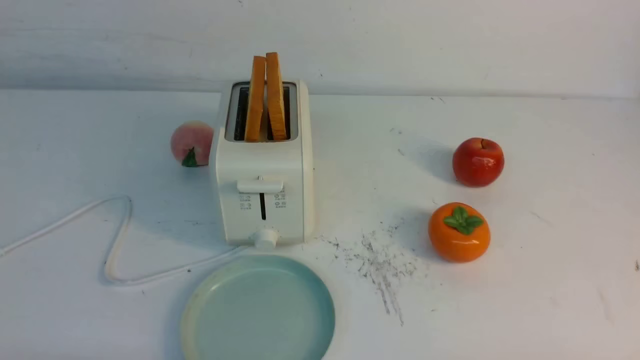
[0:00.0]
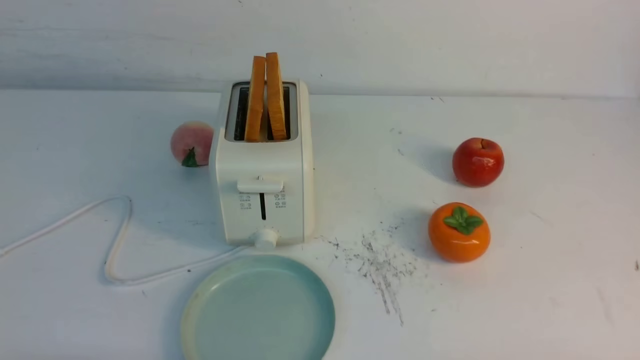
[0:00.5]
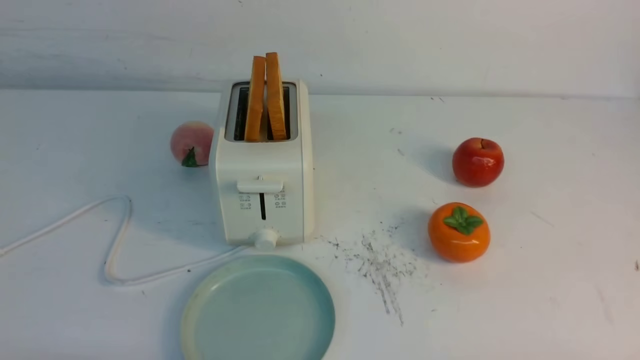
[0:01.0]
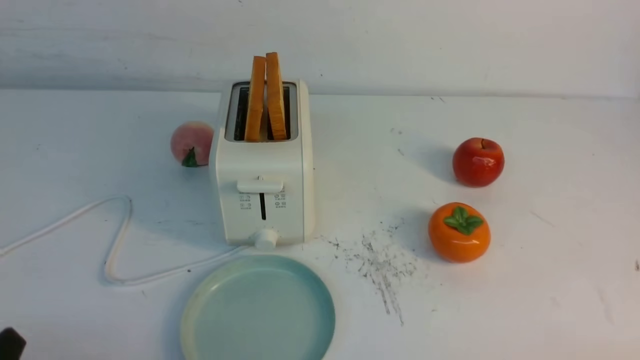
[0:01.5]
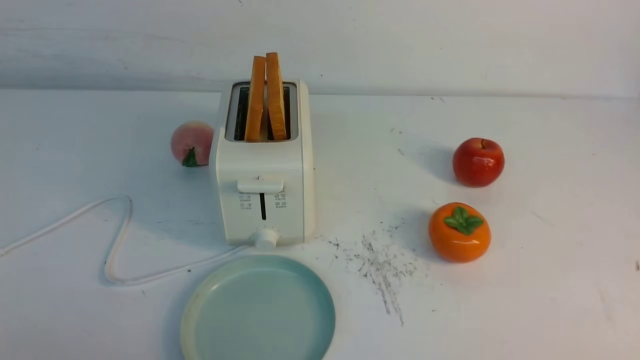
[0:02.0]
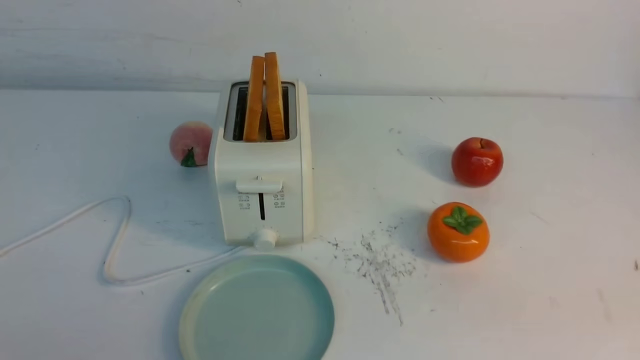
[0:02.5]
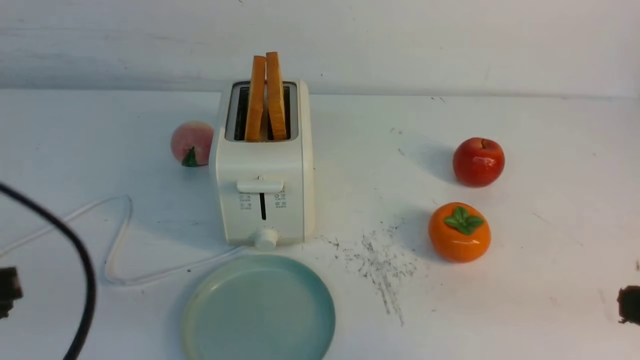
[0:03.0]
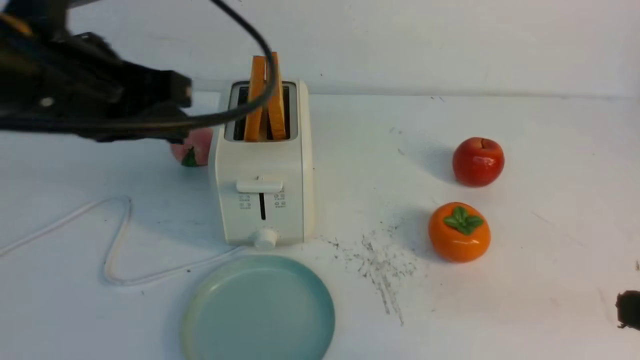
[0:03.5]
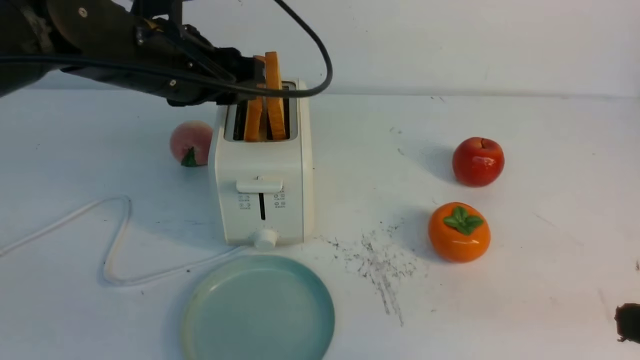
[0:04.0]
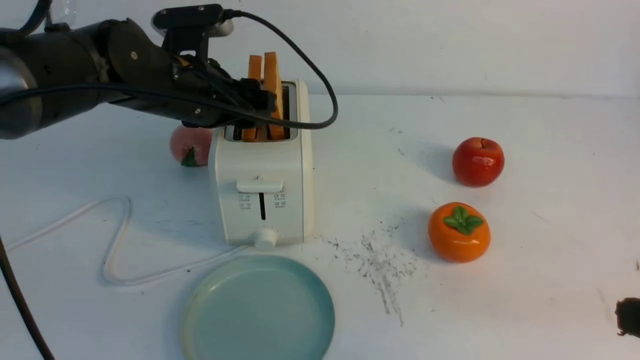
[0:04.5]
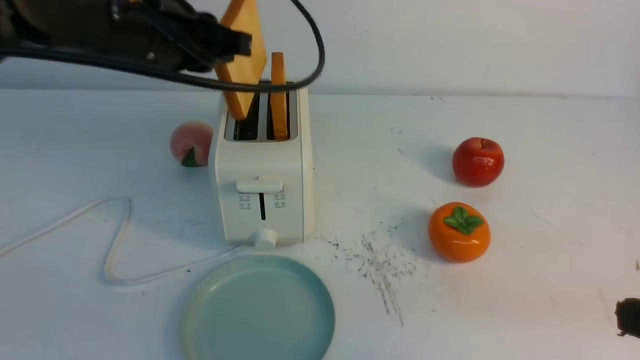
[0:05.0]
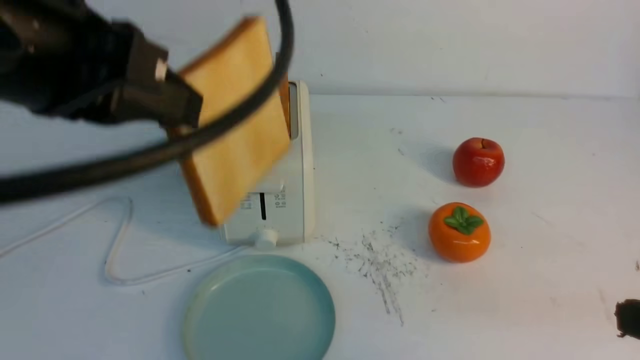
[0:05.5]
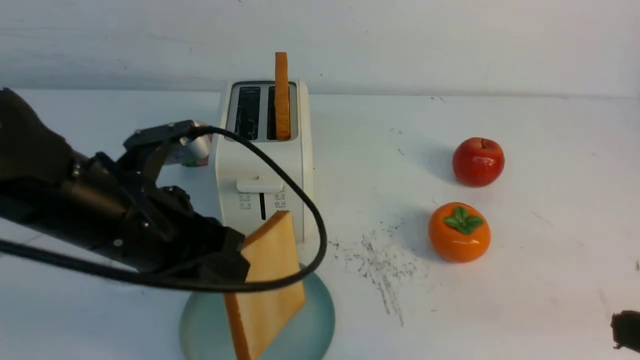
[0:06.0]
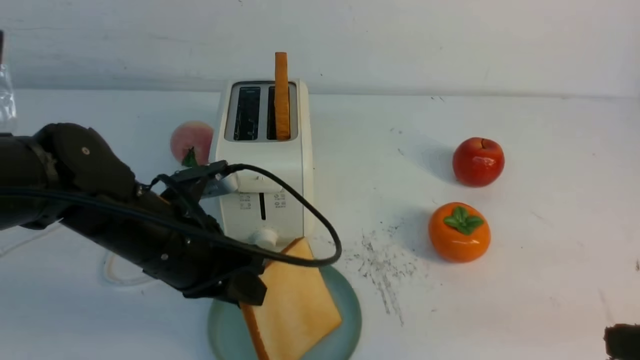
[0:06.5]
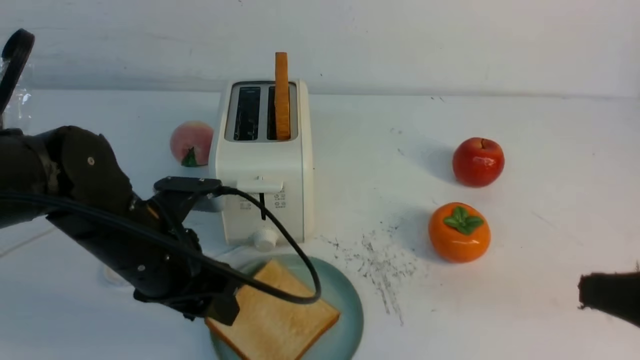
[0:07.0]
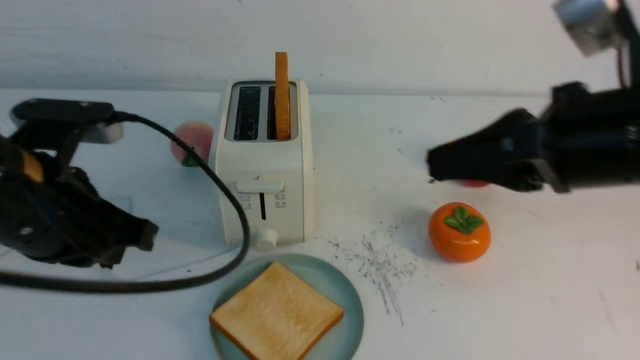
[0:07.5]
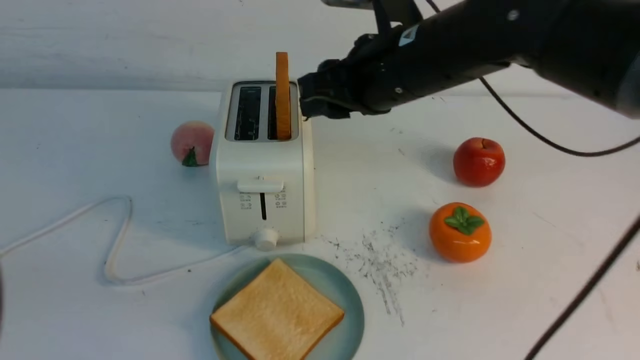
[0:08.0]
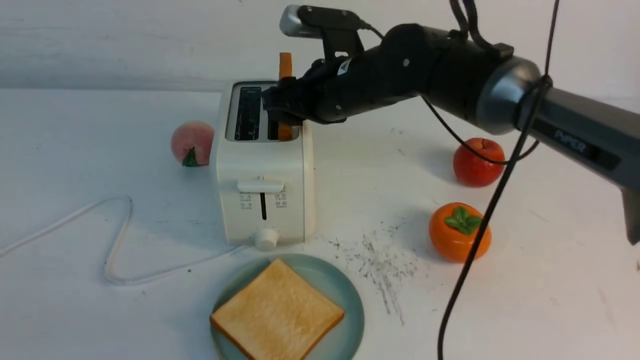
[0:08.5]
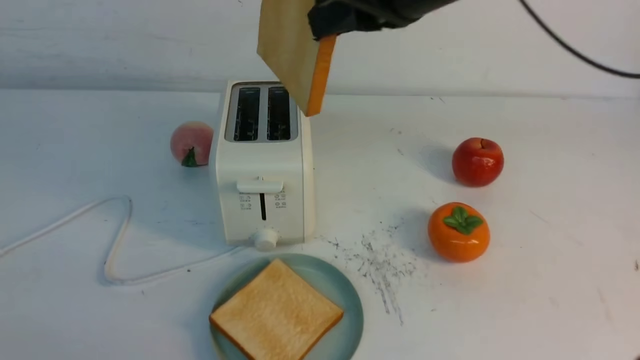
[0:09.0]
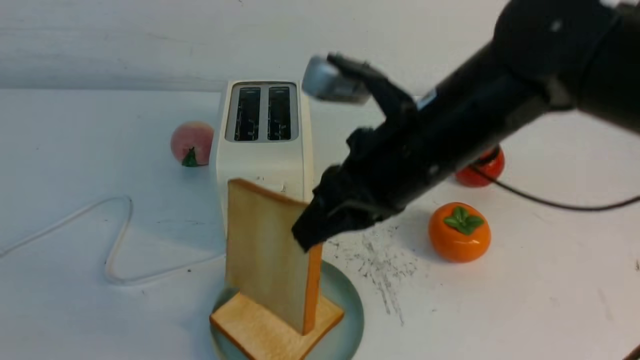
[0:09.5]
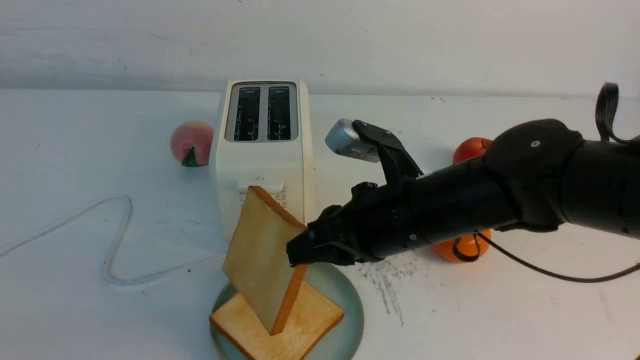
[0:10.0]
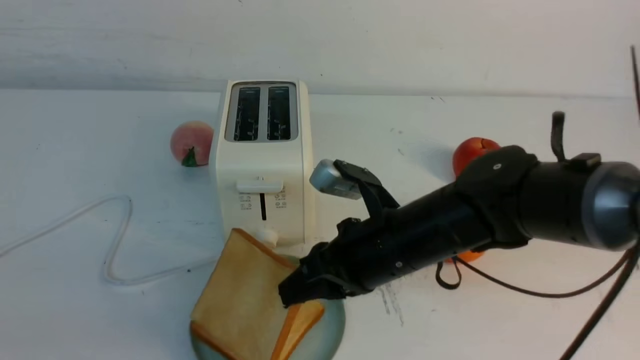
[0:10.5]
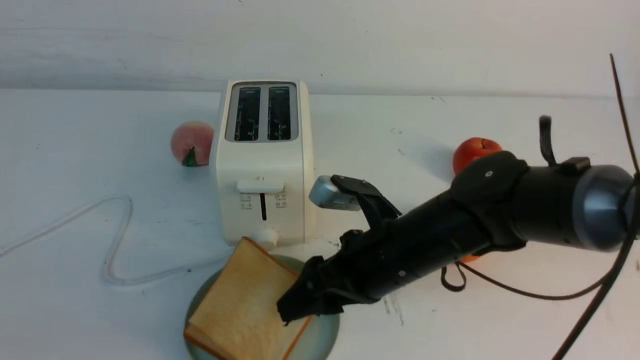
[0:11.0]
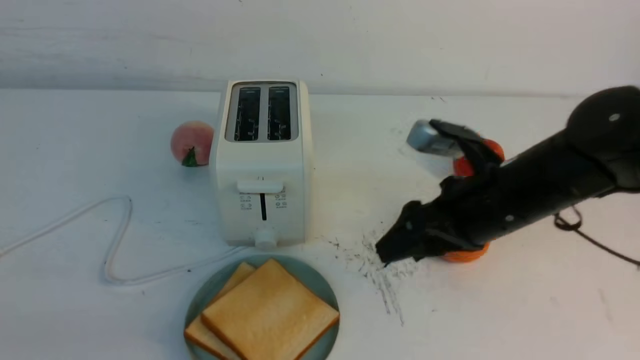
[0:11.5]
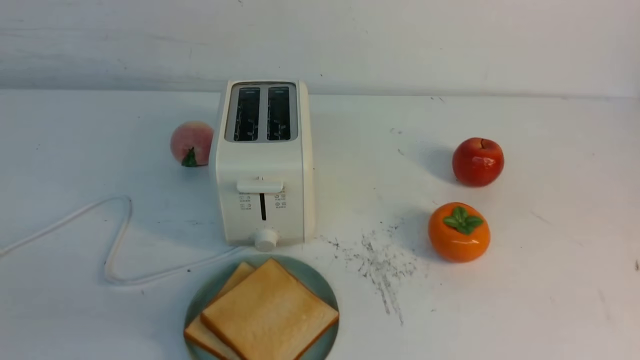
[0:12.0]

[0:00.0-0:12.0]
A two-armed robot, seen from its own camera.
Task of the whole recording: take toasted bread from bread machine on white table place on plate.
Step, 0:00.0 to 0:04.5: use the left arm to take out a slice of bread.
Step, 0:05.0 to 0:07.0: use the left arm to put a slice of bread into the empty plate.
Step, 0:07.5 to 0:08.5: use the right arm to take out a slice of bread.
Step, 0:09.0 to 0:11.0: use the right arm to put a slice of bread into the plate.
0:02.0 to 0:04.0: The right gripper goes roughly 10 cm upward and forward, and closes. Meanwhile the left gripper moves forward and upward, roughly 35 cm, and closes, then opens again.
0:04.0 to 0:06.0: The left gripper is displaced backward and downward by roughly 15 cm, and closes up.
0:06.0 to 0:08.0: The right gripper is displaced forward and to the left by some 30 cm, and opens. Meanwhile the left gripper goes some 20 cm backward, upward and to the left, and opens, then closes once more.
0:08.0 to 0:10.0: The left gripper ends up some 5 cm from where it was. The right gripper moves up and down over about 20 cm, changing direction 2 times, and closes up.
0:10.0 to 0:12.0: The right gripper heads to the right, upward and backward, covering approximately 30 cm, and opens, then closes again.
